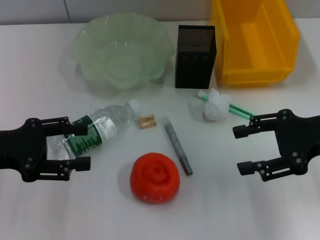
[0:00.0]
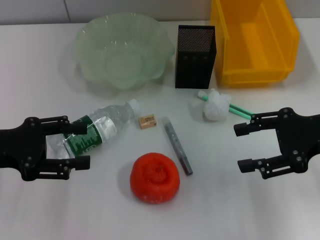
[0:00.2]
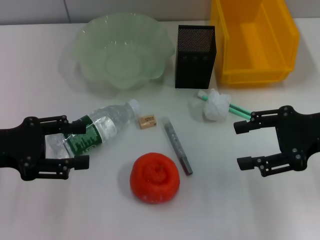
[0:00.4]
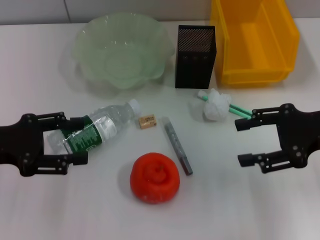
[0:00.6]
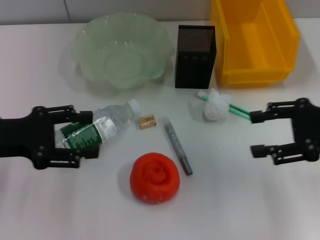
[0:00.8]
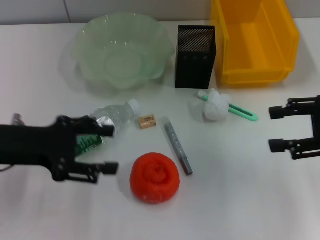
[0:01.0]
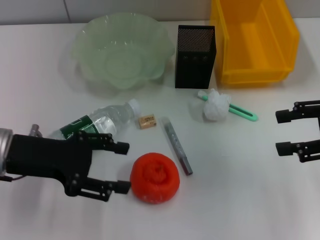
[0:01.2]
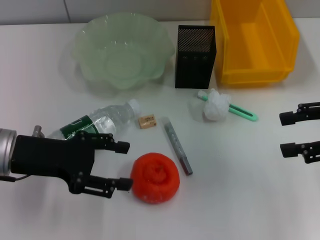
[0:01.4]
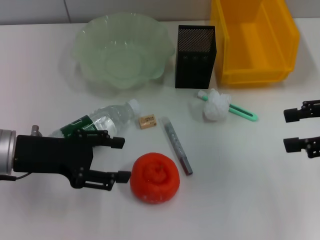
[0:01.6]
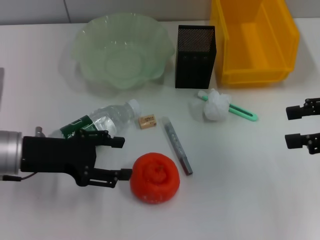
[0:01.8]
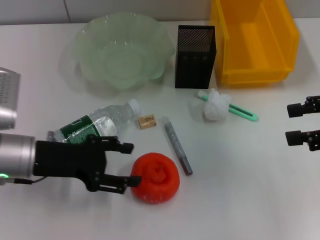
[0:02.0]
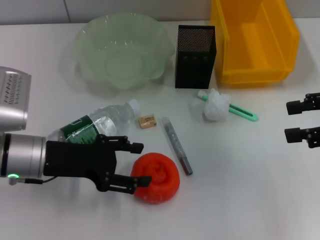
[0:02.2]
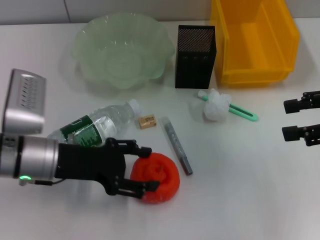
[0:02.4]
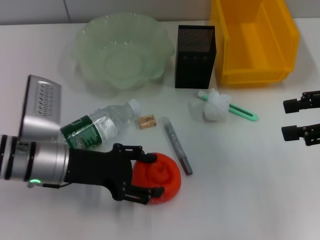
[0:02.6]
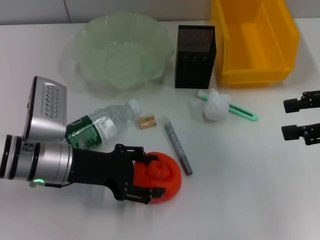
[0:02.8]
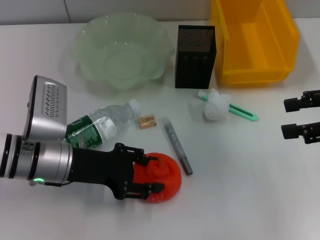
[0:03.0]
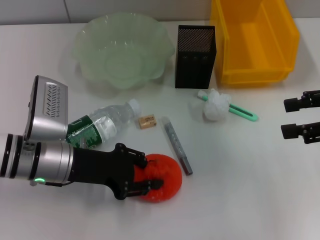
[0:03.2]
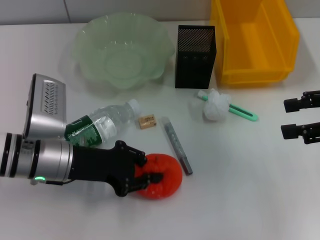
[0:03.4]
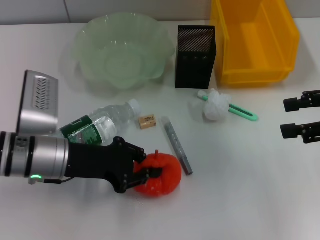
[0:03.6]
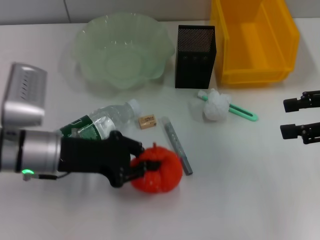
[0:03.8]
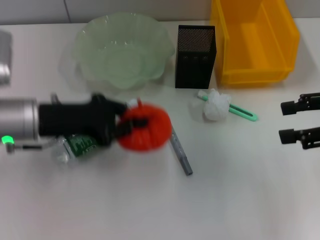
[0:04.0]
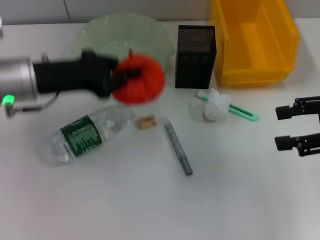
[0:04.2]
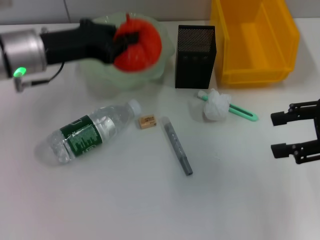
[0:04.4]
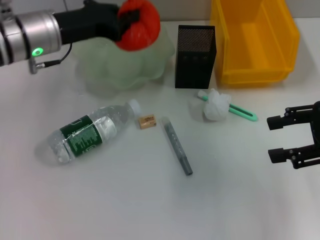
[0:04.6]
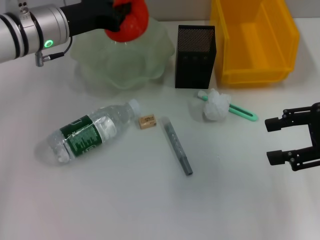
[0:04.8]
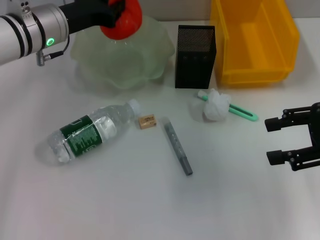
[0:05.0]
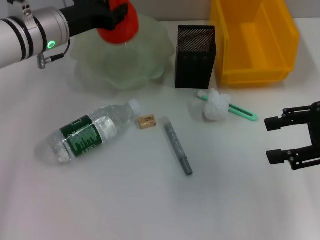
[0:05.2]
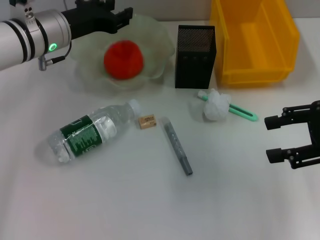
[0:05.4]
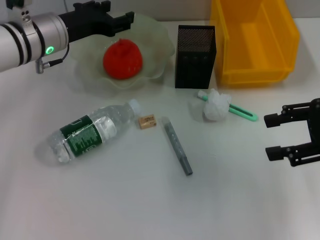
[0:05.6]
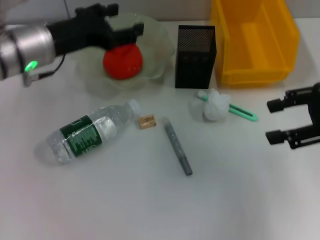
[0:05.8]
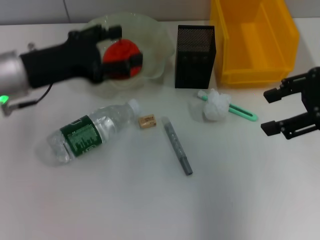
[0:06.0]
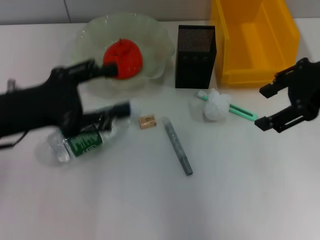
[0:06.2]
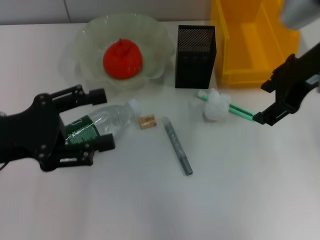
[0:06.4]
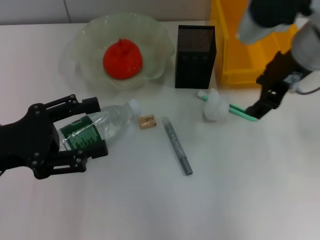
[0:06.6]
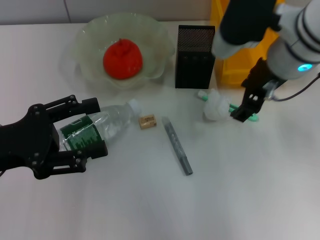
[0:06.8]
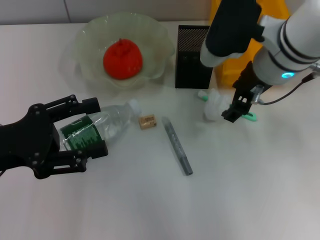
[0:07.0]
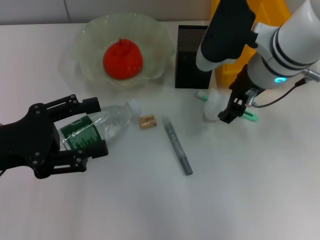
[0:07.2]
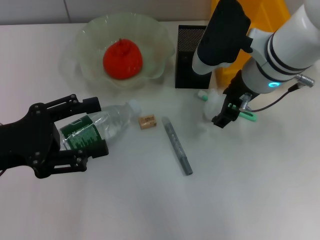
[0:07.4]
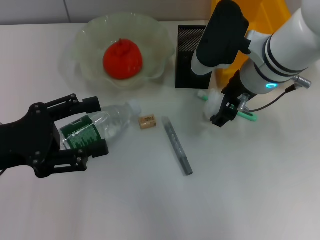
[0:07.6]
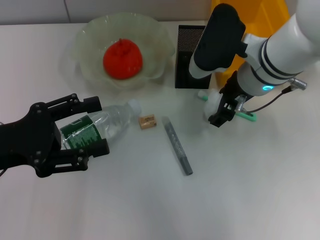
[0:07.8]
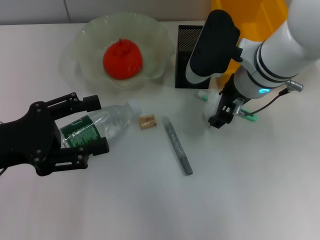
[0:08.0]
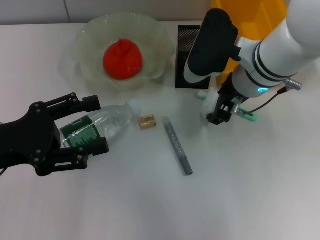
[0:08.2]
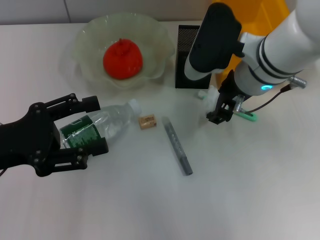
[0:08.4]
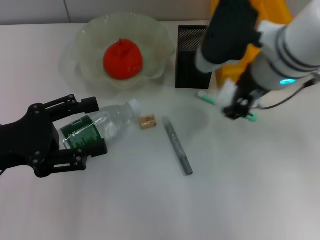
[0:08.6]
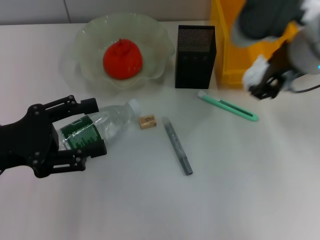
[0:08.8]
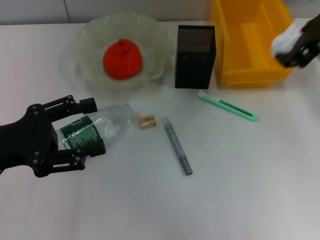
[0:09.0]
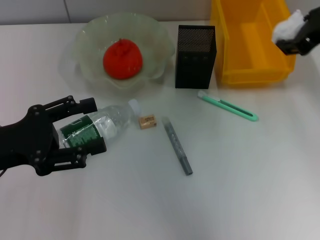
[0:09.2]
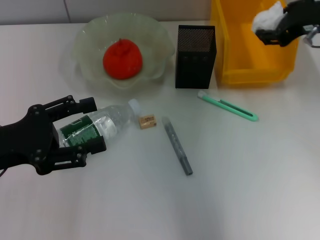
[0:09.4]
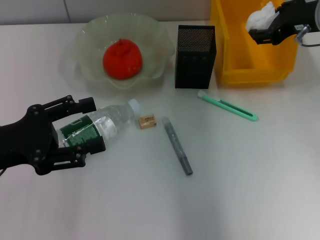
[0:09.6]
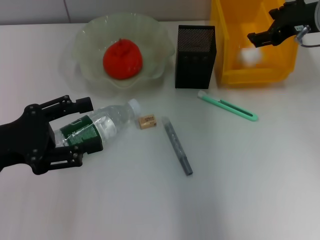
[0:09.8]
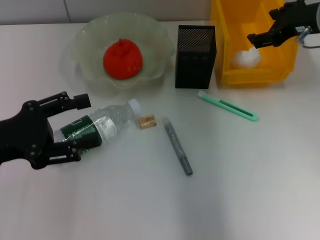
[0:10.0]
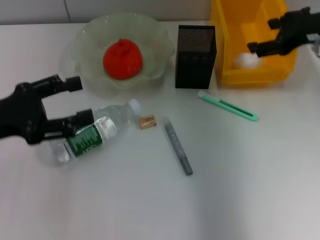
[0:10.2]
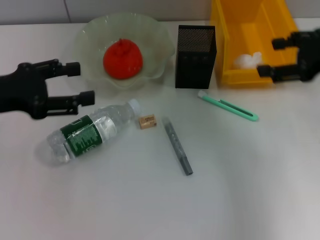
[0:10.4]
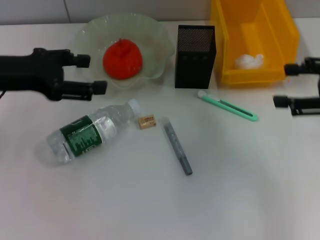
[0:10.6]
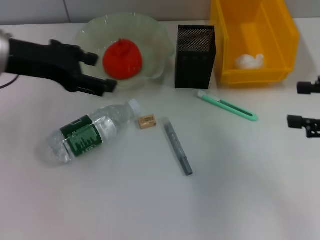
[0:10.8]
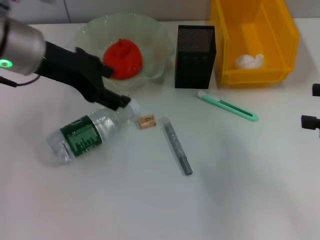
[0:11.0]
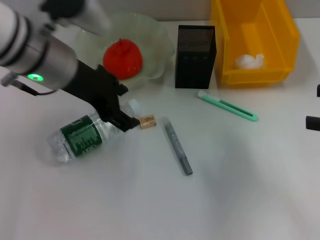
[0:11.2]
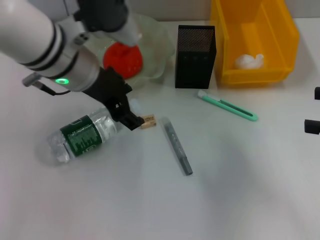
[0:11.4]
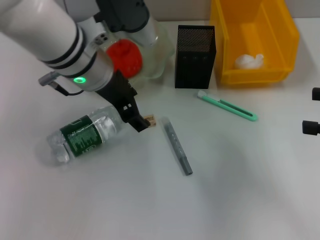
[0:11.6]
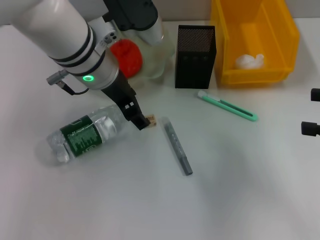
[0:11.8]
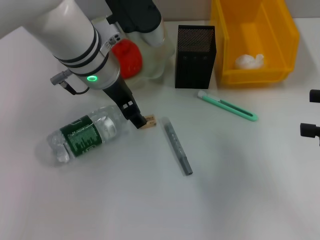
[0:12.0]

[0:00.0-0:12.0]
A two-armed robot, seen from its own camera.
Step, 0.0 to 3.4 s: Grab the orange with the left hand.
Step, 3.6 to 5.8 s: Place the orange into the fruit bowl with the left hand.
Step, 6.0 to 8.0 s: Grab the paper ball with the right hand.
Step, 8.2 to 9.8 s: Place the paper ball into the trash can with the right hand.
0.0 to 1.6 s: The two grippers go approximately 5 cm to the right.
1.6 to 3.0 s: The left gripper travels to the right by about 5 cm.
3.0 to 4.4 s: The left gripper is displaced upward and forward by about 15 cm, and closes up.
4.4 to 6.0 s: The right gripper is displaced upward by roughly 5 cm, while the left gripper is displaced backward by approximately 5 cm, and opens.
6.0 to 7.6 s: The right gripper shifts some 20 cm to the left, downward and forward. Meanwhile the left gripper shifts roughly 10 cm backward.
7.6 to 9.0 s: The right gripper moves upward and to the right, roughly 15 cm.
9.0 to 10.4 s: The left gripper moves forward, about 5 cm, while the right gripper shifts roughly 10 cm to the right and downward, and opens.
10.4 to 12.0 s: The left gripper moves to the right and forward, roughly 20 cm. The right gripper is displaced backward and to the right by roughly 10 cm.

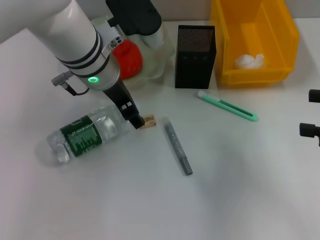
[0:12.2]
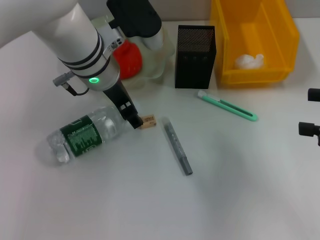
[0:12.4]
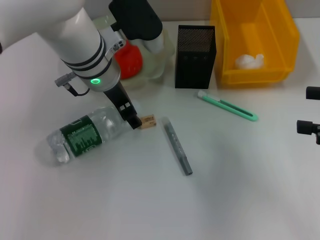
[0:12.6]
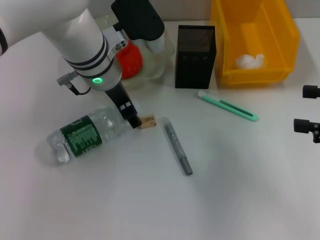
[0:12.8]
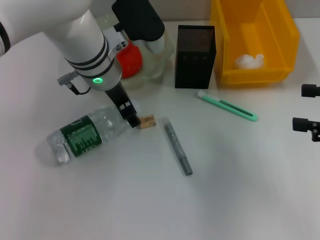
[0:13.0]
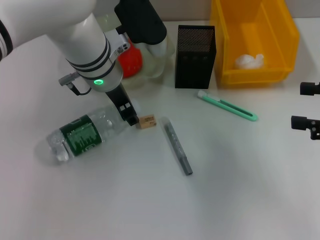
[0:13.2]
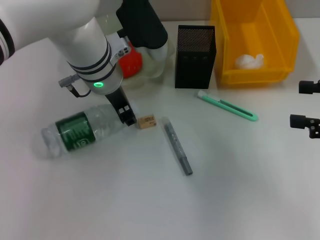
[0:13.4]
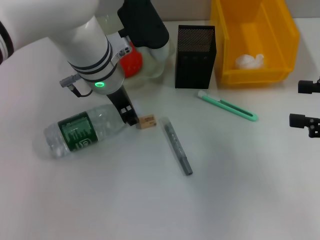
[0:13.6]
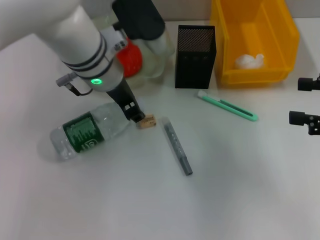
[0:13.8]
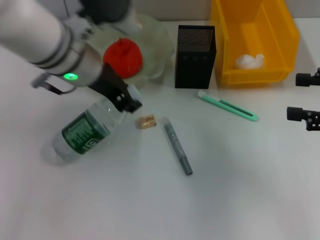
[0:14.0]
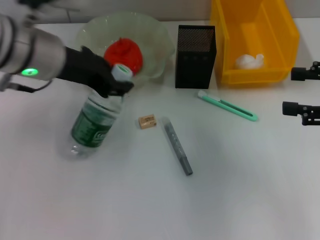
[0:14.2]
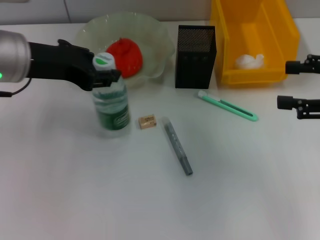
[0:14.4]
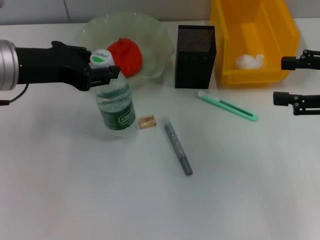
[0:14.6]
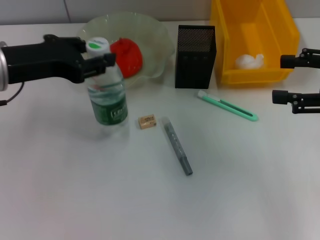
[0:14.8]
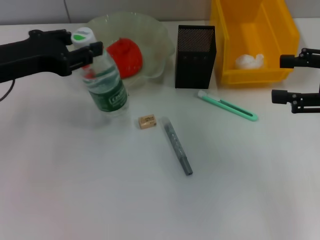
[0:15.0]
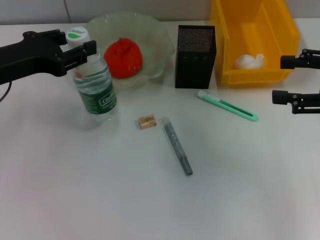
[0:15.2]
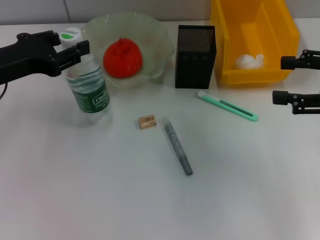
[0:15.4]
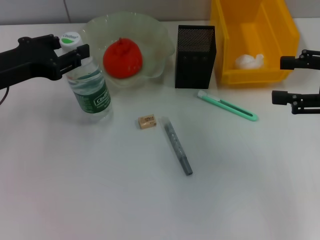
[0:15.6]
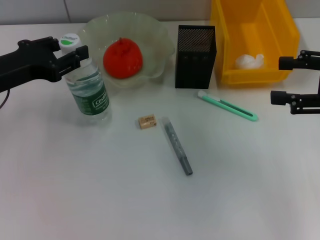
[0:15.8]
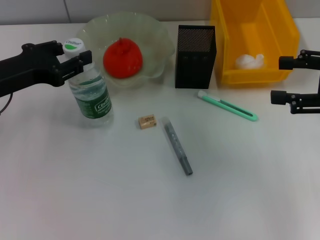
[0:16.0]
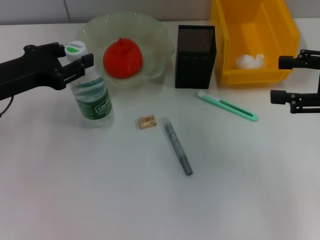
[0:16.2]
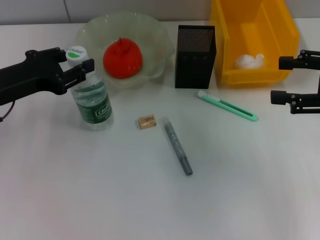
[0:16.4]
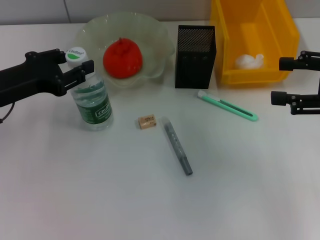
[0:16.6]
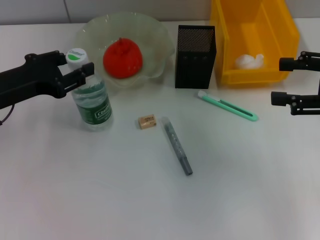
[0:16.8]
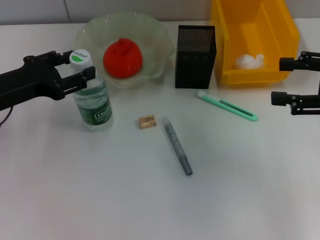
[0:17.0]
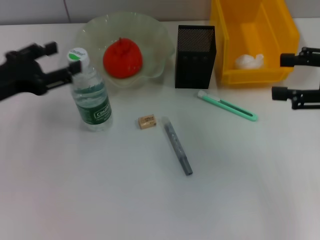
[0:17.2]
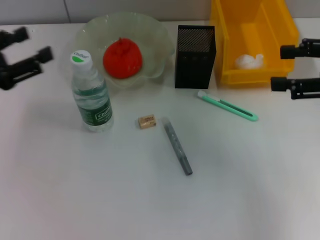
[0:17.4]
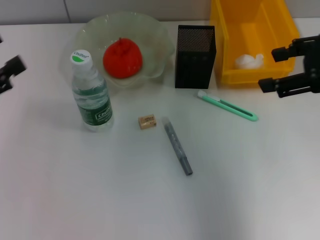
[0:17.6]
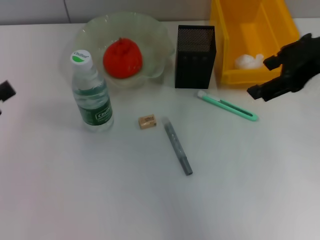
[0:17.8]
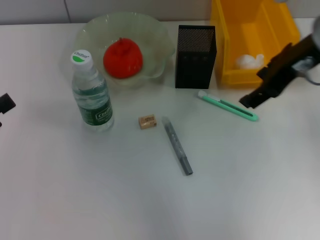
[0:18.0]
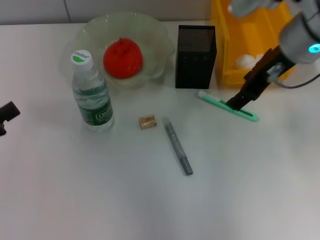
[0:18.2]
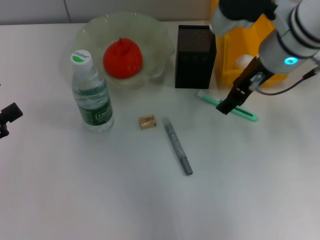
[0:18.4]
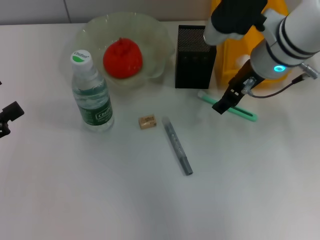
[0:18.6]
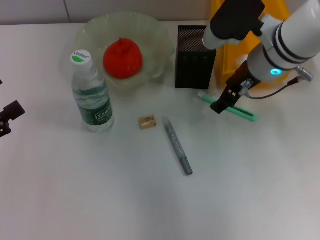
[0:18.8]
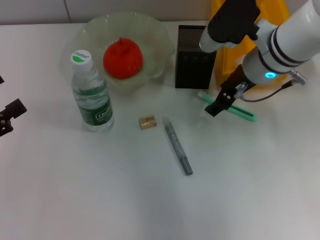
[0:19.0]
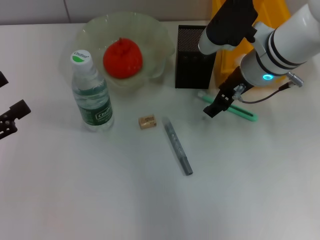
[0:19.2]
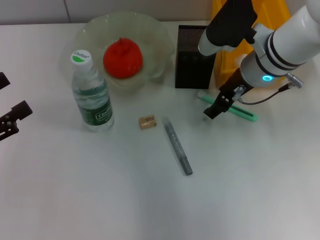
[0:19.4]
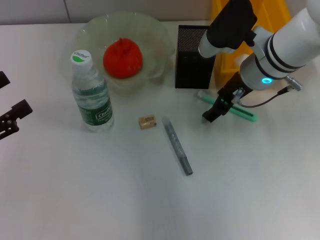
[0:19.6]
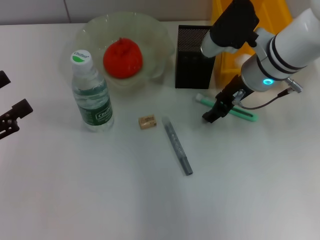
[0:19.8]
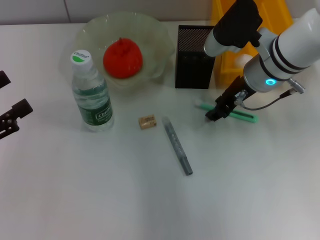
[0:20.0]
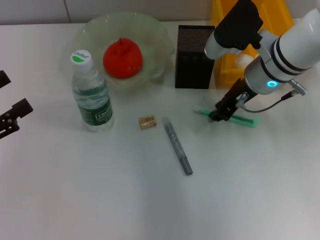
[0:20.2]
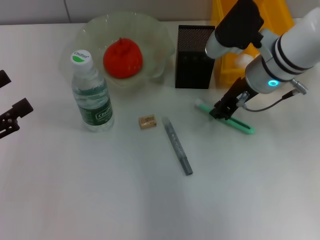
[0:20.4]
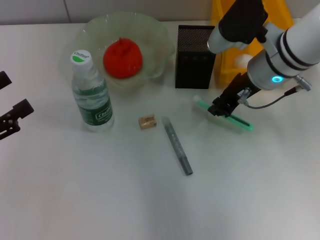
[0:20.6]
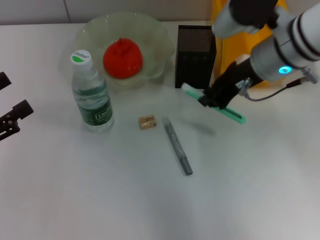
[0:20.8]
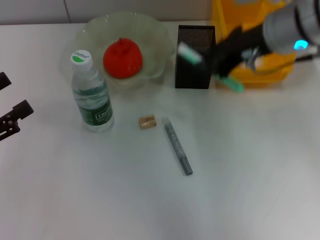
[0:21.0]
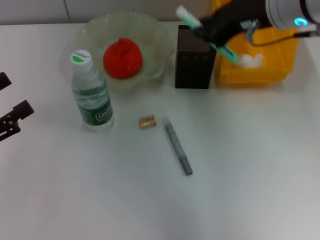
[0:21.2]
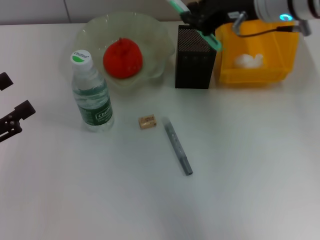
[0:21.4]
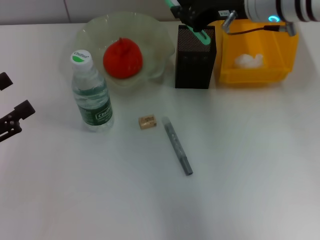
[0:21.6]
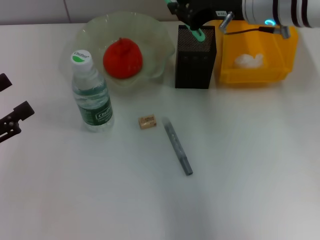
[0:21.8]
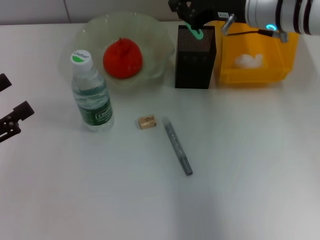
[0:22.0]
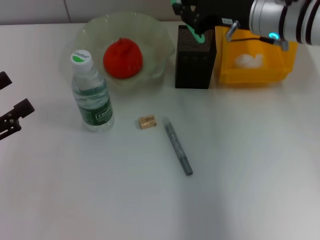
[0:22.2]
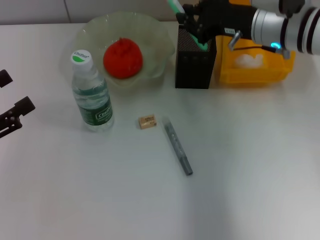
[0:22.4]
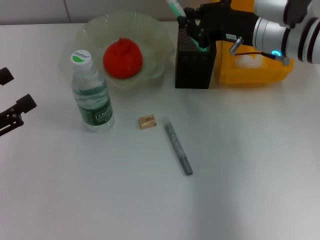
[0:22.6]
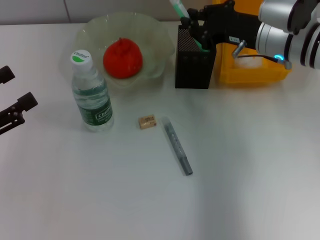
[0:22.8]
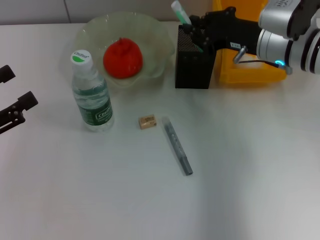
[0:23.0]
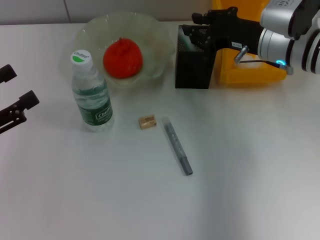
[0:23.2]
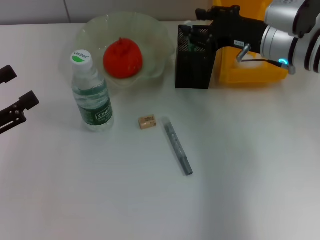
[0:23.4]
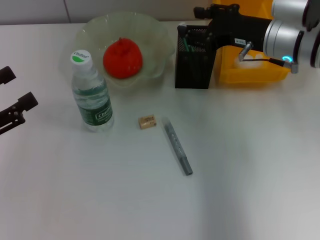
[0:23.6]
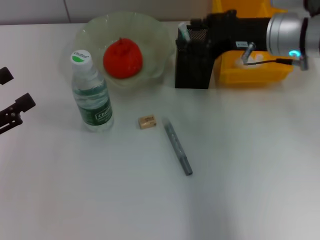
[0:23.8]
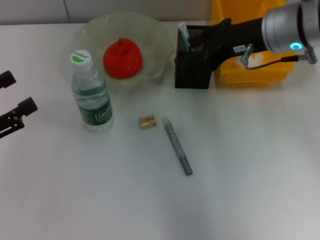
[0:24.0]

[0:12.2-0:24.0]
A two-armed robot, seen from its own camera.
Step, 13.8 to 17.6 s: Place the water bottle on the table with the left hand.
Step, 17.8 to 20.4 s: Grab the blue utility knife with the right hand.
Step, 20.6 to 24.0 s: Place the blue utility knife into the pen holder with the right hand.
12.2 to 13.6 s: The left gripper closes.
13.6 to 15.2 s: The left gripper heads to the left and backward, covering roughly 20 cm.
15.2 to 16.6 s: The grippers move only a little.
16.6 to 18.2 s: The right gripper moves to the left and forward, approximately 20 cm; the left gripper shifts some 15 cm backward and to the left, and opens.
18.2 to 19.6 s: The right gripper is displaced downward by roughly 10 cm.
19.6 to 21.0 s: The right gripper goes about 10 cm upward, and closes.
21.0 to 22.6 s: The right gripper is displaced downward by some 10 cm.
22.6 to 24.0 s: The right gripper travels upward by some 5 cm, and opens up.
